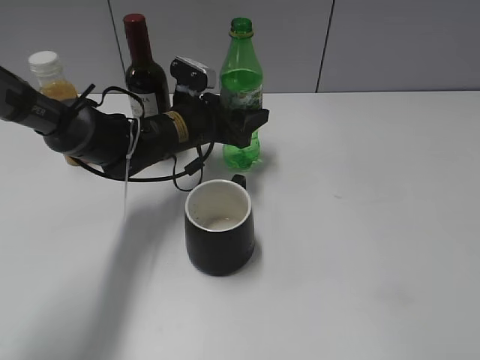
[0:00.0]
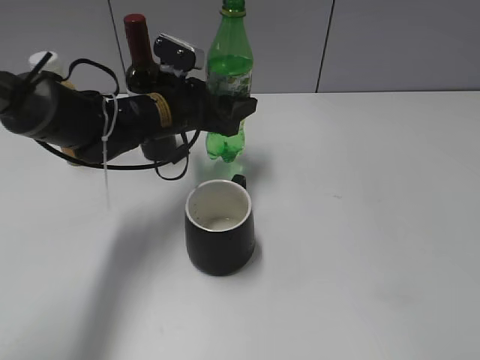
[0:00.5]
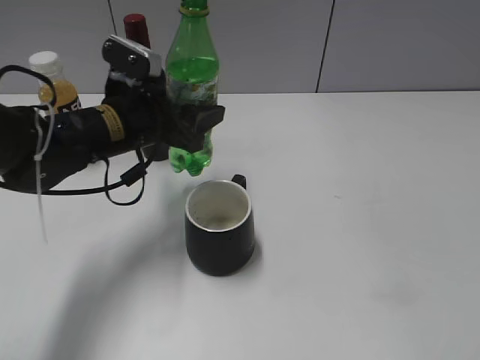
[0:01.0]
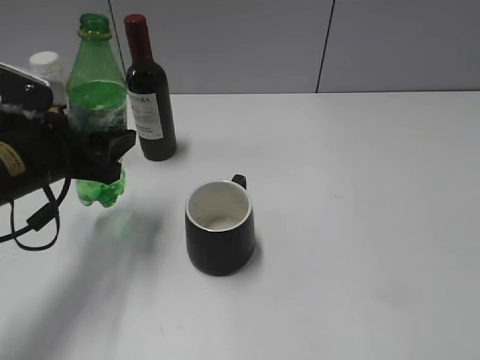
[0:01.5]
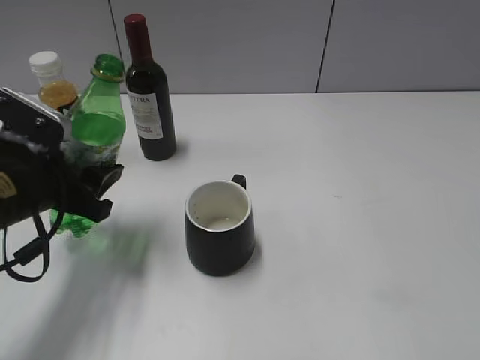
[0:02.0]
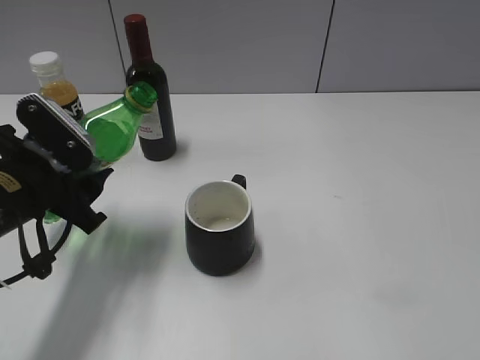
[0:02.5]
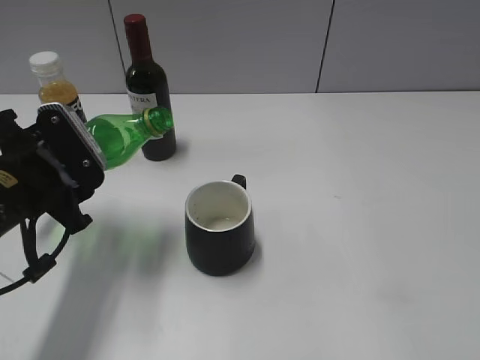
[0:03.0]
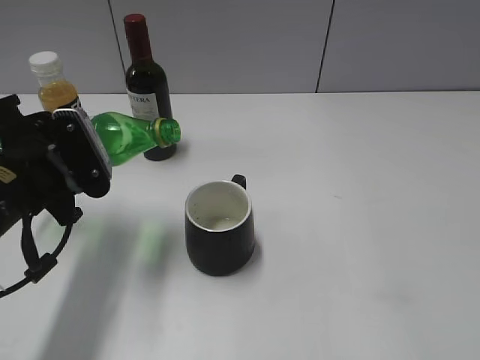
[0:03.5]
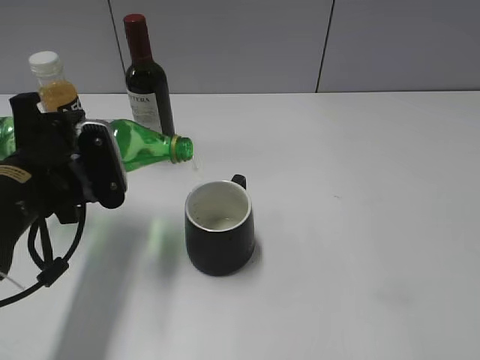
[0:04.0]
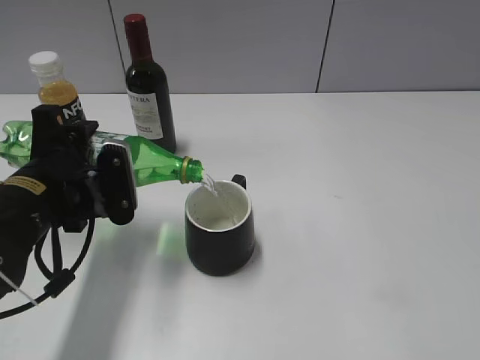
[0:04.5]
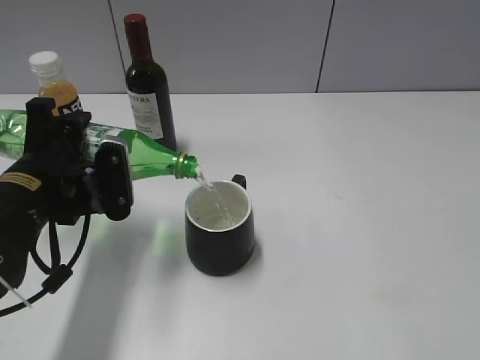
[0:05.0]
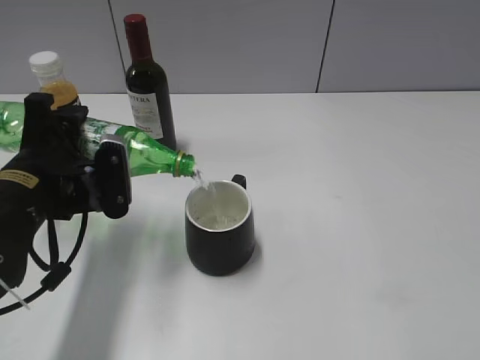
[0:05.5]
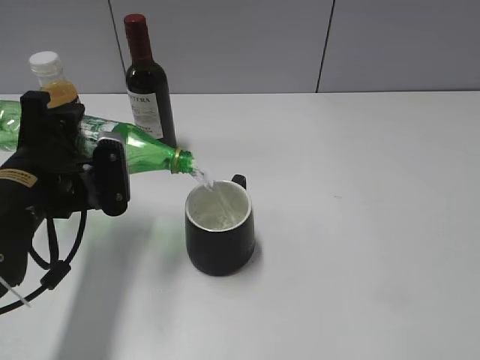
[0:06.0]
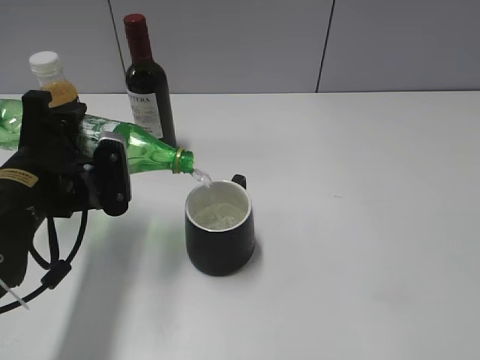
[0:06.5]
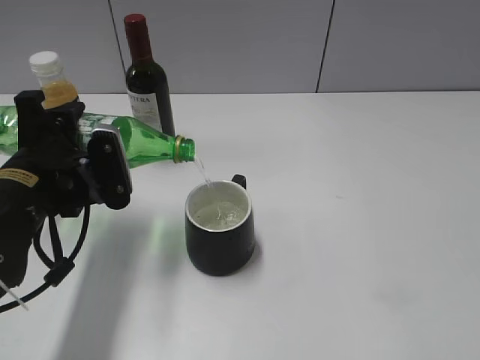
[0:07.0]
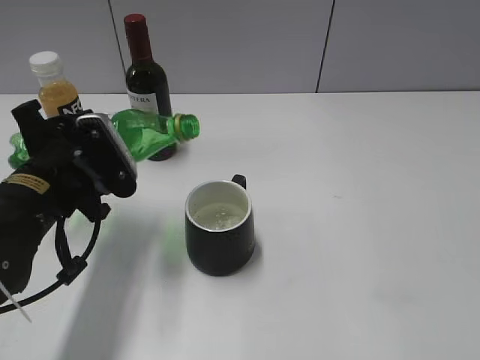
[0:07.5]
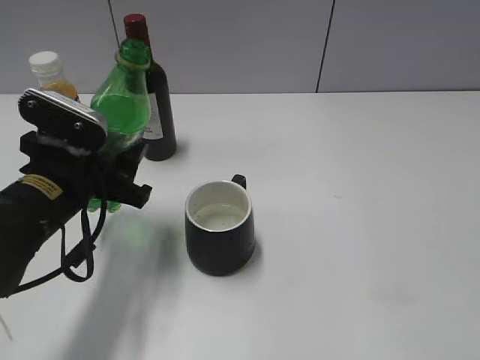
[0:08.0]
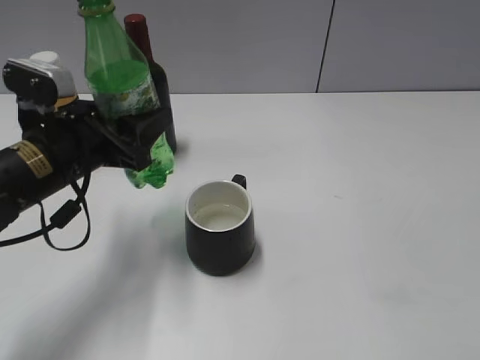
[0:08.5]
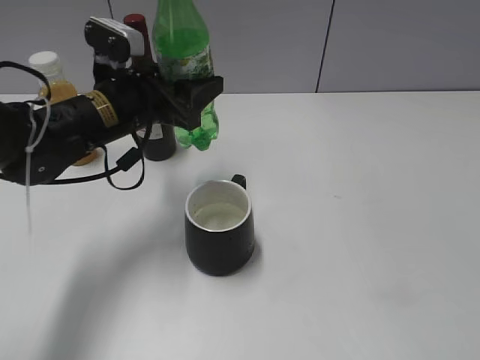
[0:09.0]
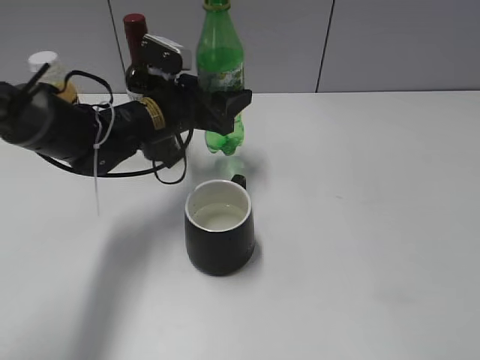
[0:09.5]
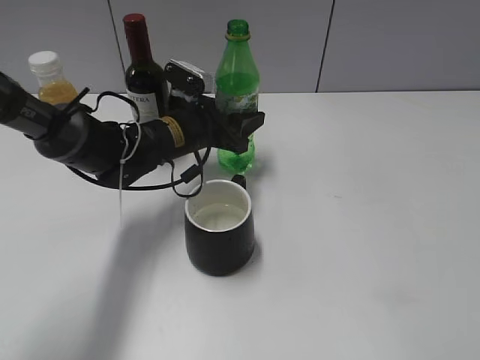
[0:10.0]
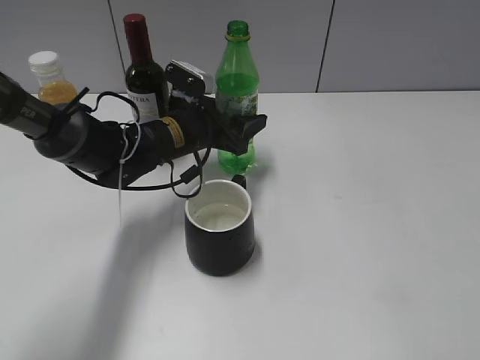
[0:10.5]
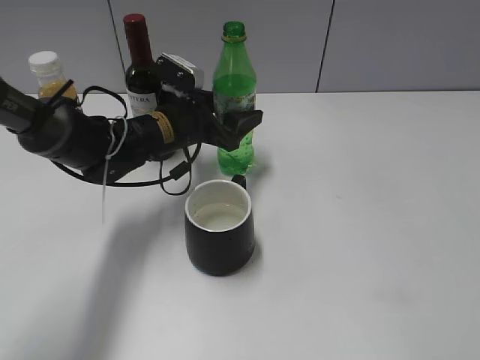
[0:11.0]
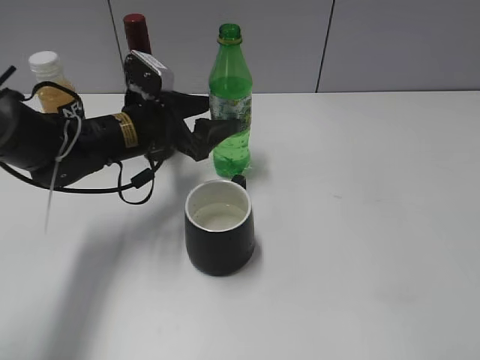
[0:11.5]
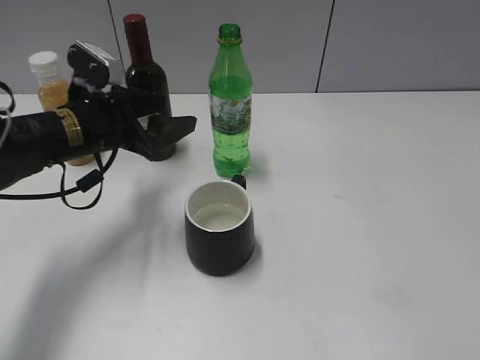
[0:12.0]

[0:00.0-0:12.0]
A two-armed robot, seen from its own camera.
Step, 0:00.0 to 0:07.5: Pour the sprite from bottle to cup with left gripper.
Step, 0:08.0 to 0:11.5: Place the sprite bottle on the table with left gripper.
0:00.0 to 0:02.0: The left gripper heads backward and to the left, covering roughly 25 cm.
0:04.0 to 0:06.0: The grippers stay close to where they were, moving slightly.
0:08.0 to 0:10.0: The left gripper shifts approximately 20 cm forward and to the right.
0:10.0 to 0:12.0: The left gripper heads to the left, backward and upward, covering some 10 cm.

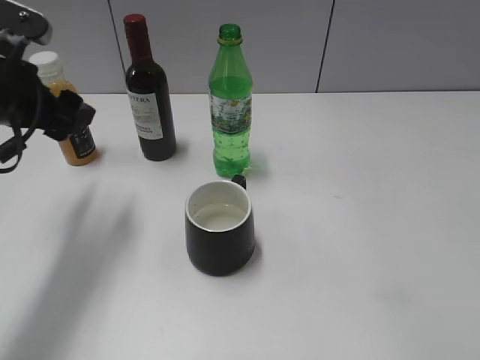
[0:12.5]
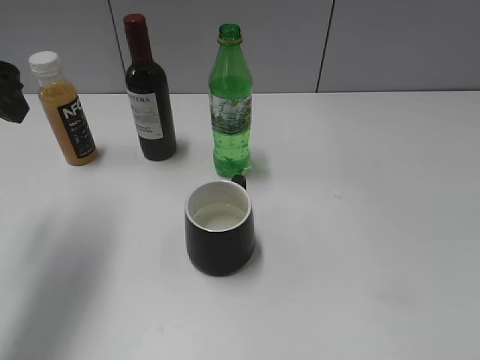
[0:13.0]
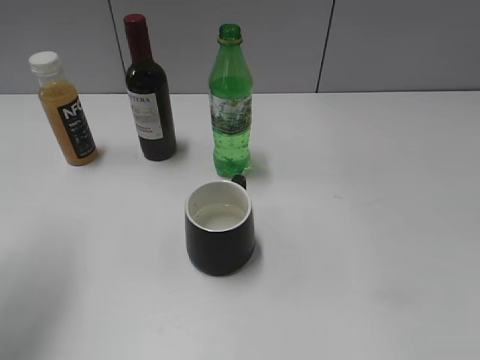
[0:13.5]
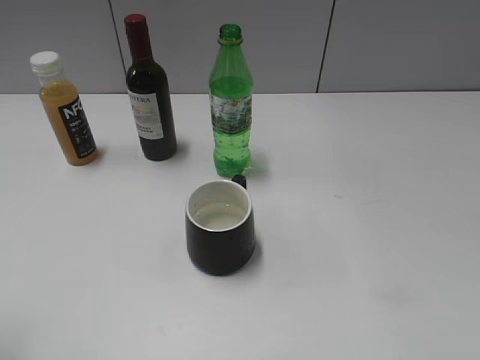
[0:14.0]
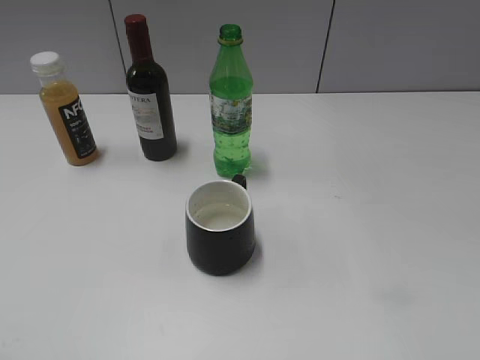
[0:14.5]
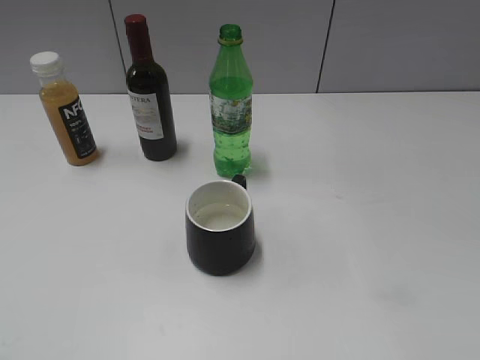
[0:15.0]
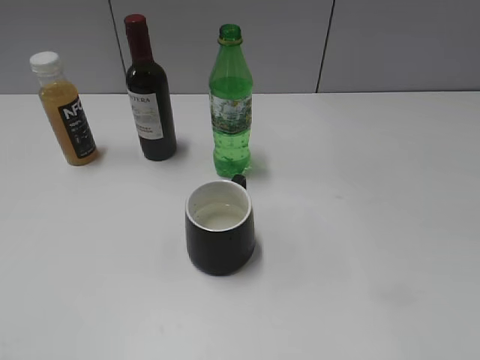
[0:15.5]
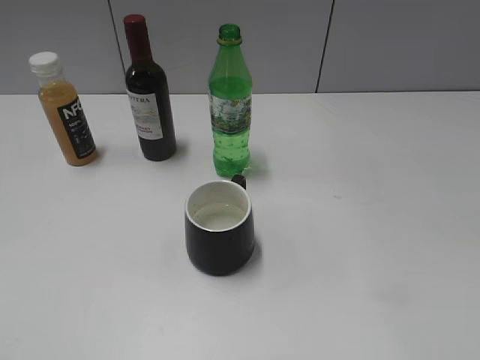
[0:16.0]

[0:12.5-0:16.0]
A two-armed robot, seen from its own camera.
0:12.5 to 0:14.5: The left gripper heads backward, covering roughly 25 cm.

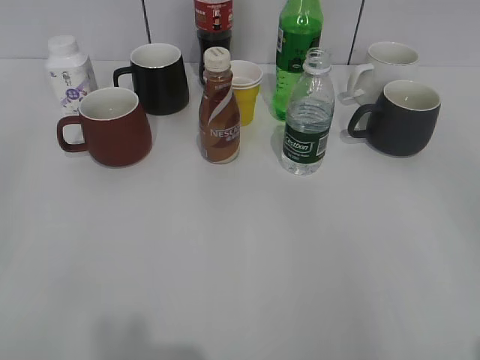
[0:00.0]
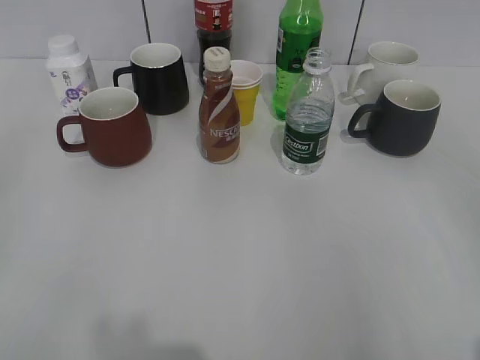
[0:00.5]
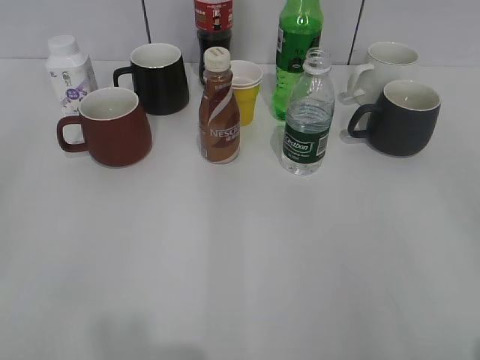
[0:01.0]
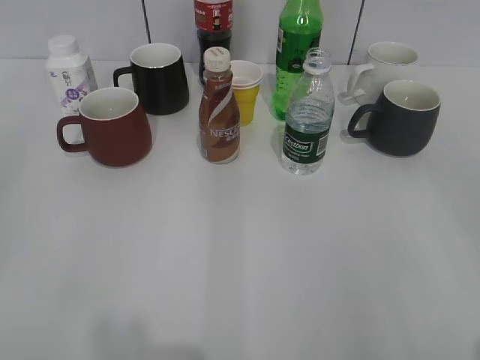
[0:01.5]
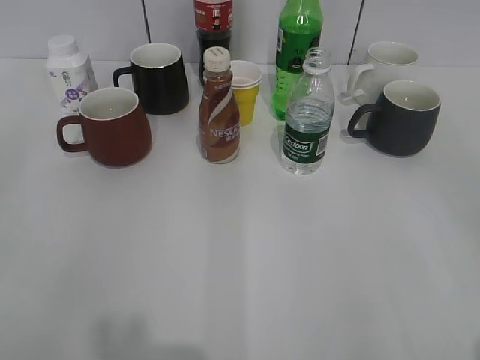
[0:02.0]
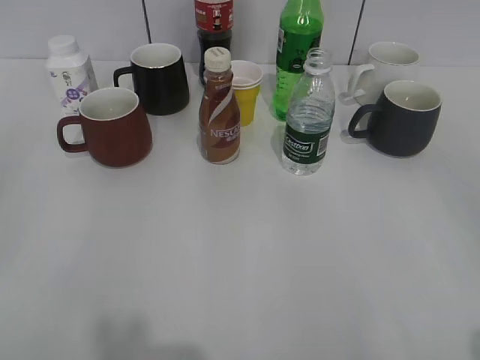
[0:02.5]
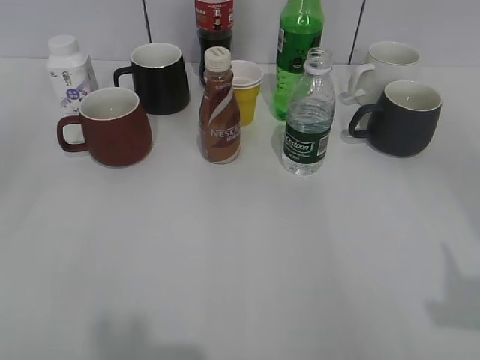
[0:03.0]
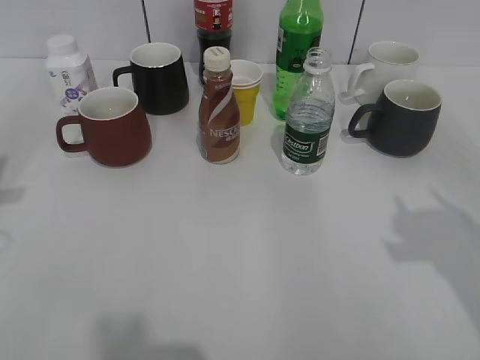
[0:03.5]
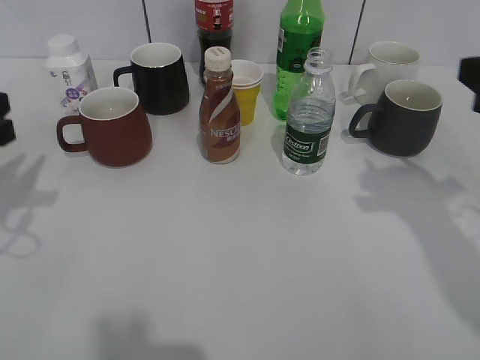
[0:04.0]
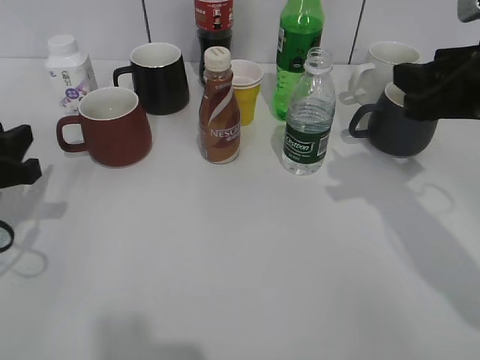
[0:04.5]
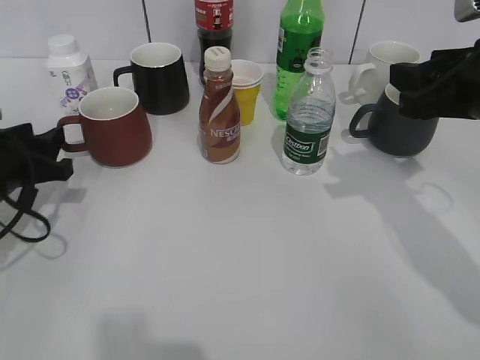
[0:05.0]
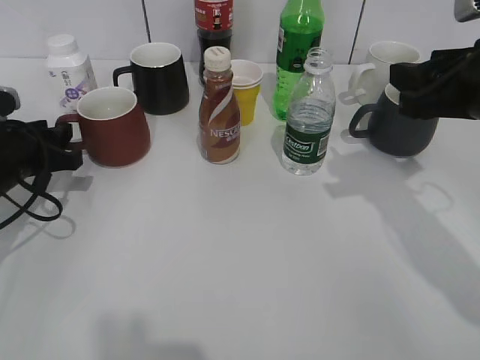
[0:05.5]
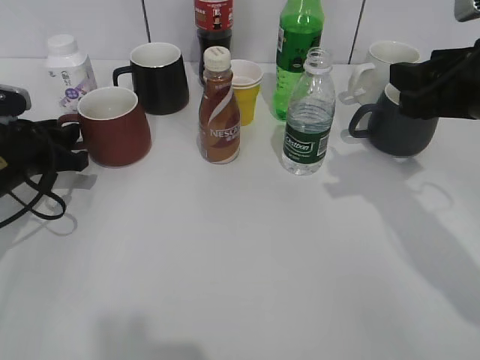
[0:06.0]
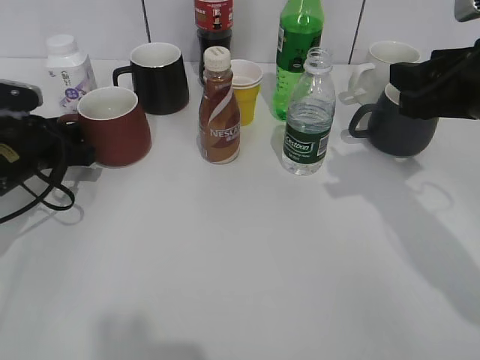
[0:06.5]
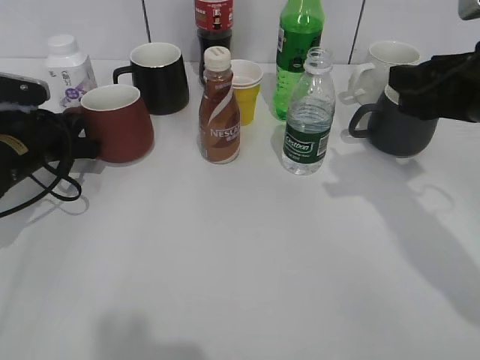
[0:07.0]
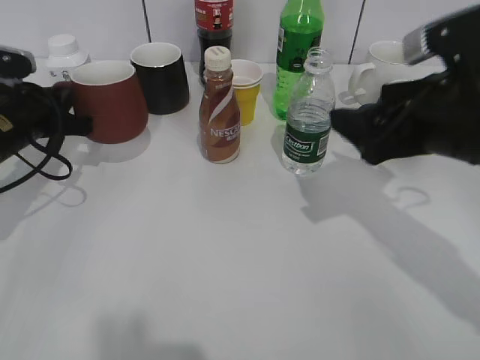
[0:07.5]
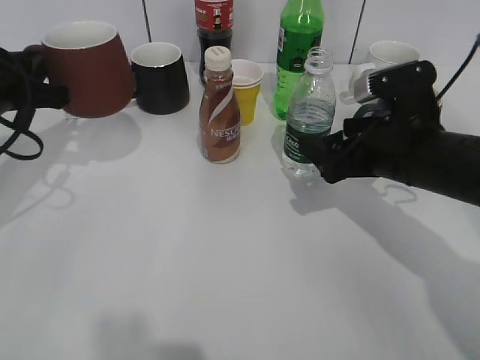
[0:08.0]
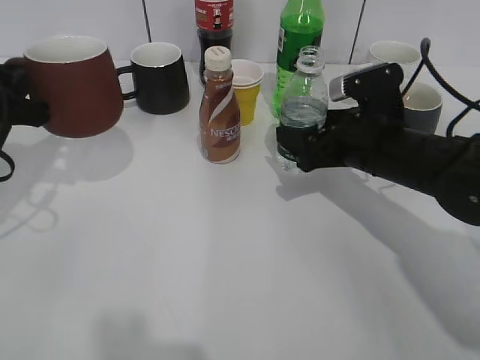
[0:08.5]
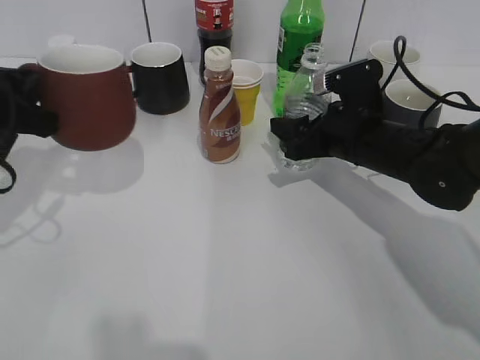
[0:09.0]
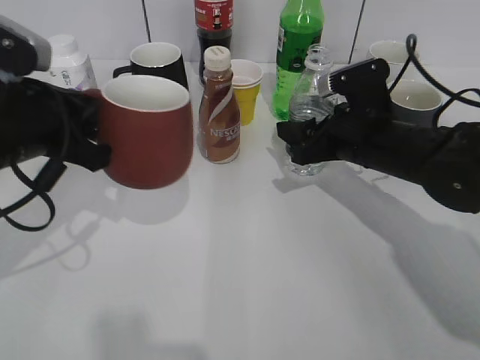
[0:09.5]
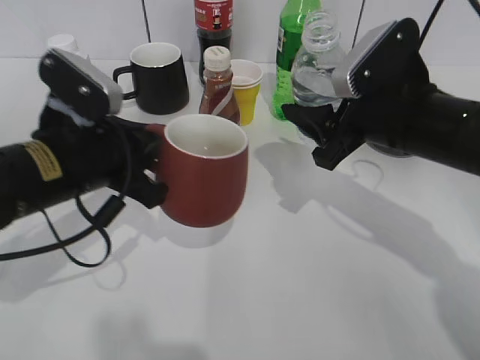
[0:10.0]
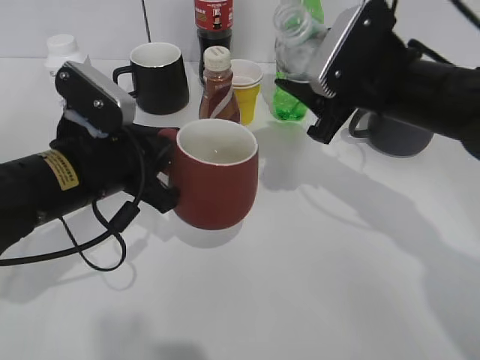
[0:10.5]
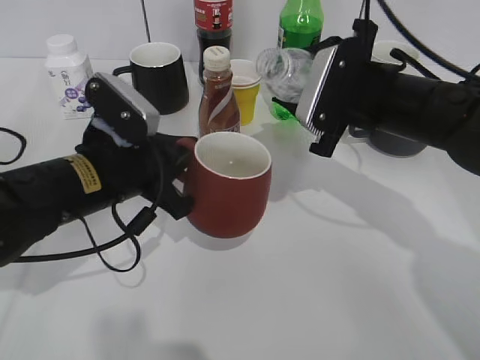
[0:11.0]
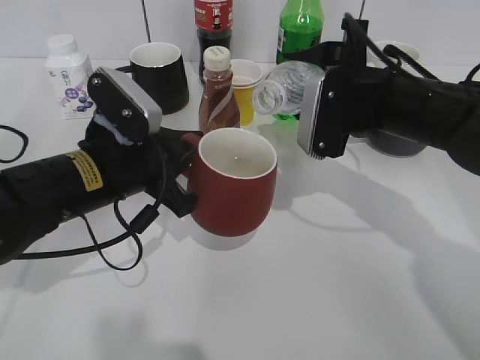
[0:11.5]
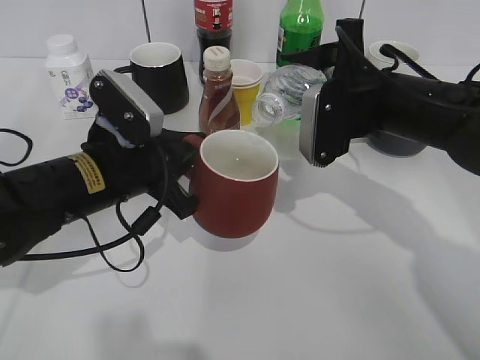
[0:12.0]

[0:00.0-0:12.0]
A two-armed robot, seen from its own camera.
Step, 0:02.5 to 0:07.5: Lift the red cup with left gripper.
Step, 0:08.0 to 0:08.5: Grasp the bottle with water with right gripper.
0:02.0 to 0:04.0: Both grippers travel together forward, some 25 cm.
0:04.0 to 0:06.0: The right gripper moves about 5 cm. Meanwhile the left gripper goes about 10 cm downward and forward.
0:06.0 to 0:08.0: The right gripper heads downward, covering about 10 cm, and opens up, while the left gripper goes approximately 10 cm upward, and closes up.
0:08.0 to 0:10.0: The left gripper heads to the right and backward, covering roughly 15 cm; the right gripper closes.
